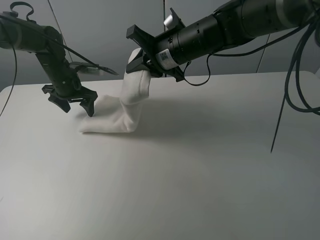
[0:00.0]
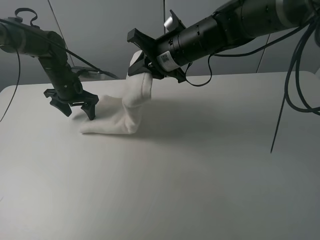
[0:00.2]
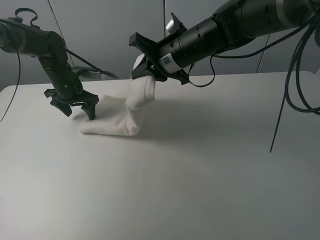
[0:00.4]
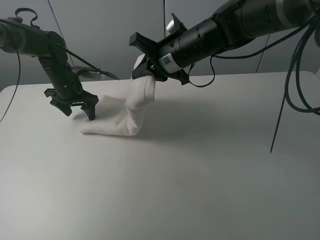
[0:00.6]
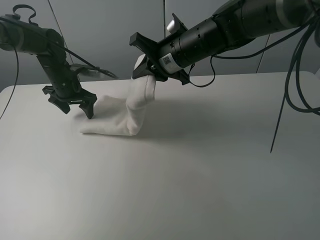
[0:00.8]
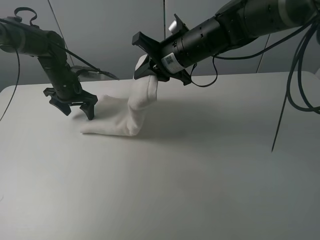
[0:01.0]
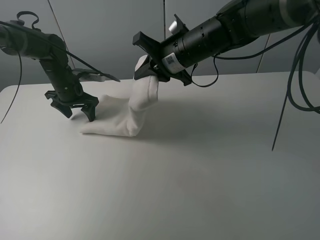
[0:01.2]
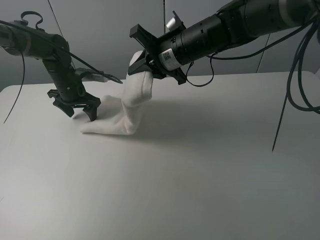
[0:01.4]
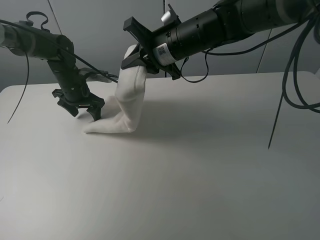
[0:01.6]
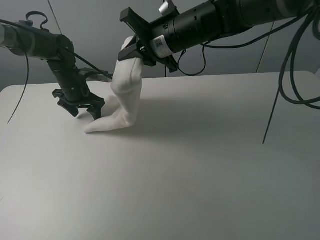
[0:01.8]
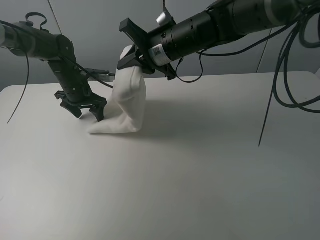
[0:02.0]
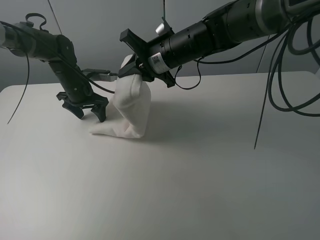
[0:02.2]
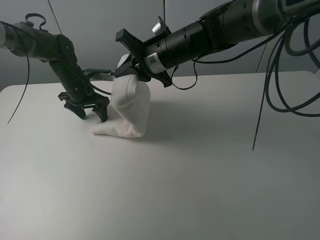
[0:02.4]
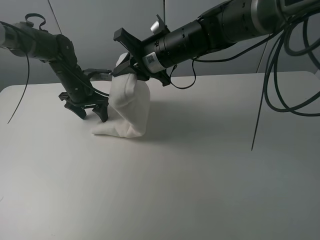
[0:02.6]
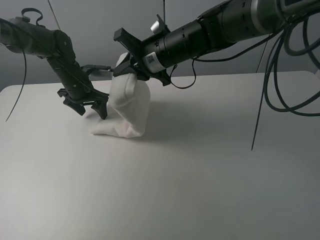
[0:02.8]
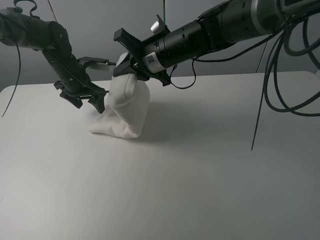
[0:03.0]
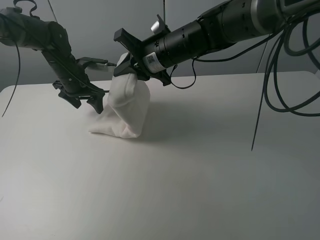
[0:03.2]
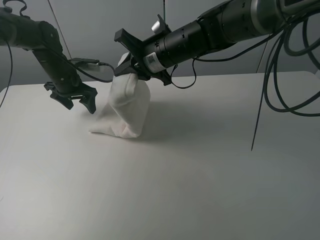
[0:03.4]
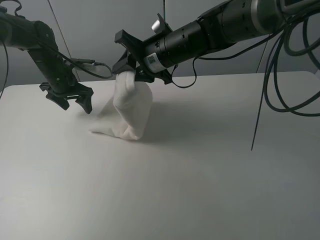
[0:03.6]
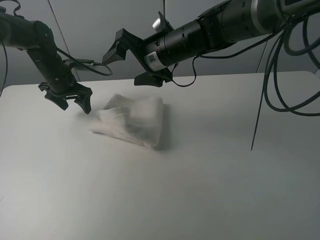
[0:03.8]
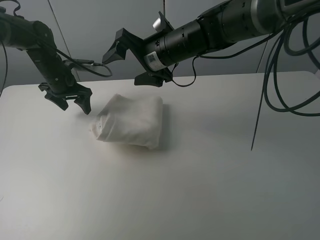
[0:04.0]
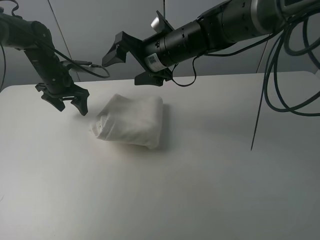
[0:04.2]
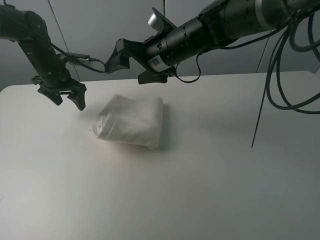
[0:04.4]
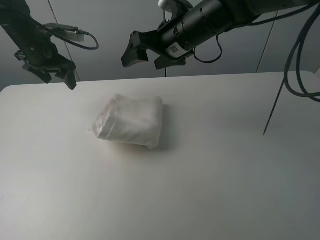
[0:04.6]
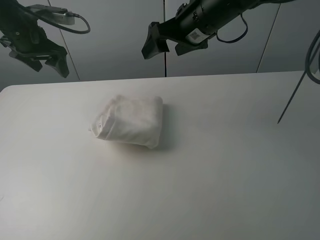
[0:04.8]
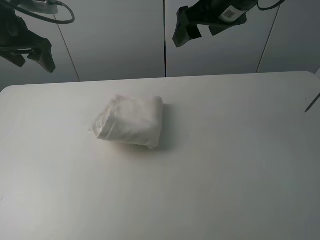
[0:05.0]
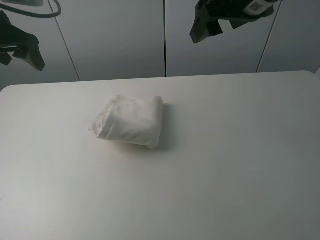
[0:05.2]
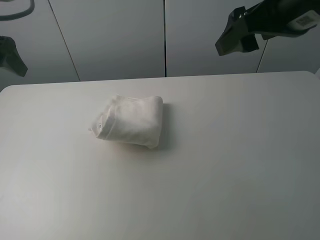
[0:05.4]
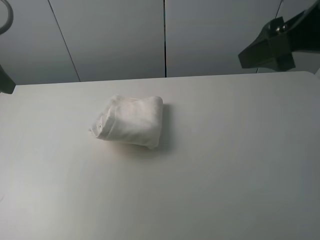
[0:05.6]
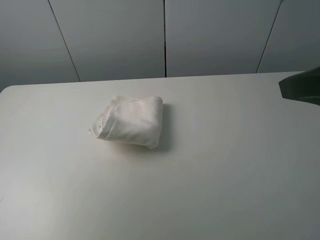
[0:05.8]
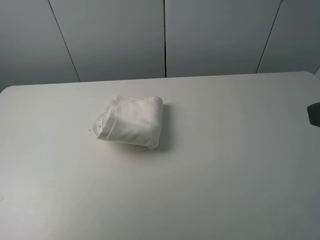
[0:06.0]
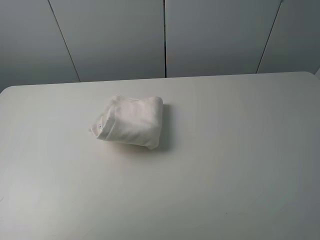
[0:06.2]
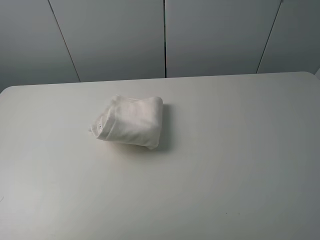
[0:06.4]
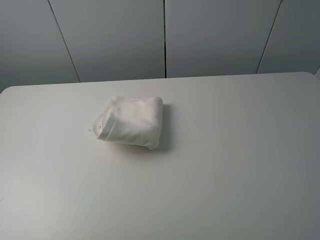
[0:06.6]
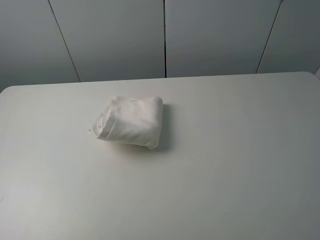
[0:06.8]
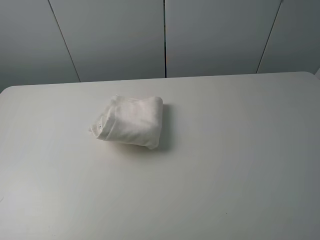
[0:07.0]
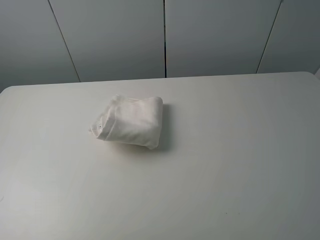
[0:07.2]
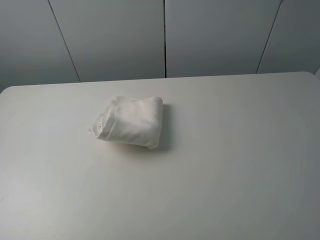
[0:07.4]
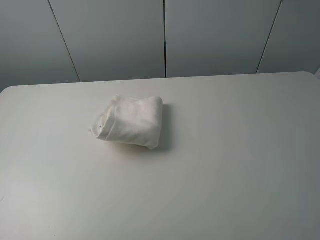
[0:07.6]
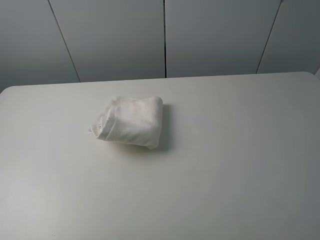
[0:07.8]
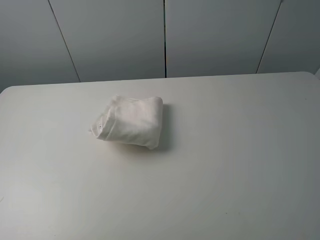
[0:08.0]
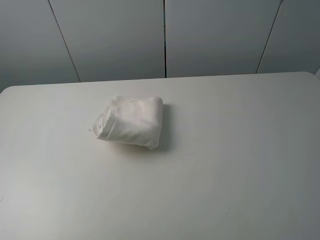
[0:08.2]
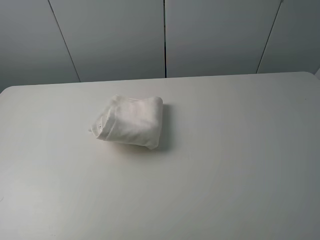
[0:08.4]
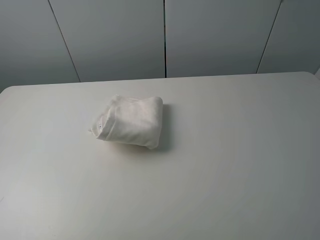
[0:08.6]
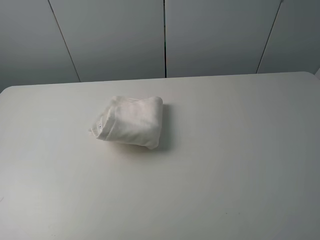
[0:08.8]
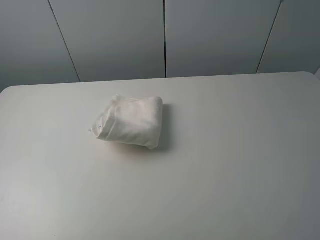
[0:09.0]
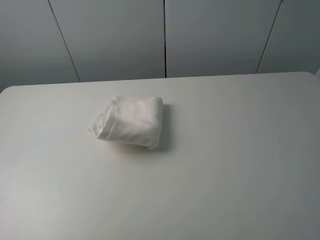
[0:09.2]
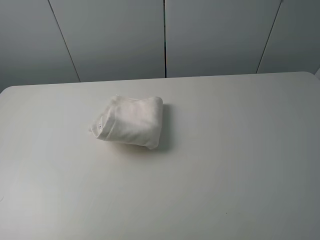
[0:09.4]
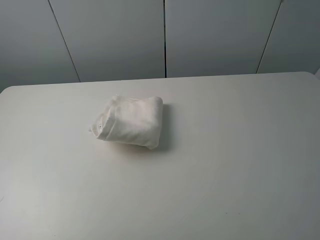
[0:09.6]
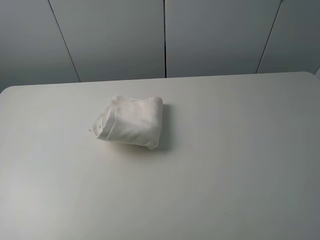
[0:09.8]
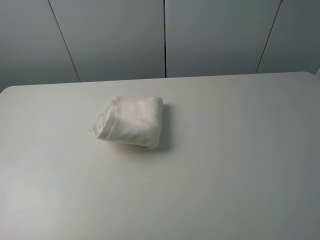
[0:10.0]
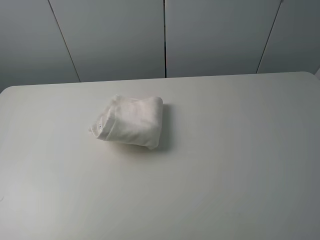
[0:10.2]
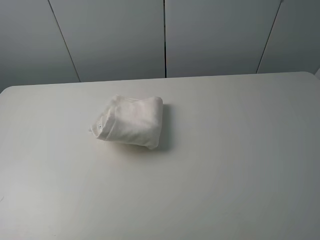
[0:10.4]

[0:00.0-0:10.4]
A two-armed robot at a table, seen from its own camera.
Task of the whole recording: fold the towels on the table.
Step, 0:00.0 to 0:04.2: Fold the white towel from right to left with right gripper.
0:00.0 to 0:03.0: The grippers make only small movements.
0:03.0 to 0:04.4: The right gripper opens its fingers. The left gripper ends up about 5 cm from where it was.
0:04.4 to 0:06.0: The right gripper shifts about 35 cm backward and to the right. The left gripper goes approximately 35 cm backward, upward and to the left.
0:09.0 to 0:10.4: Both grippers stay put.
